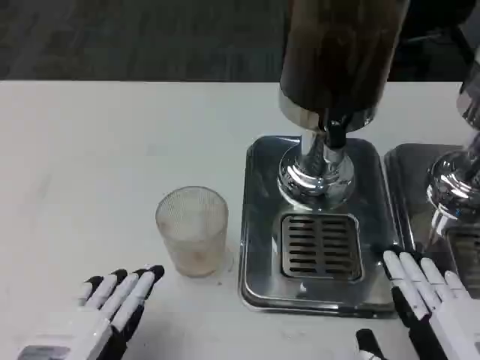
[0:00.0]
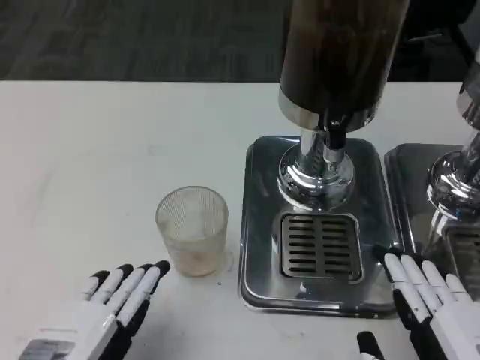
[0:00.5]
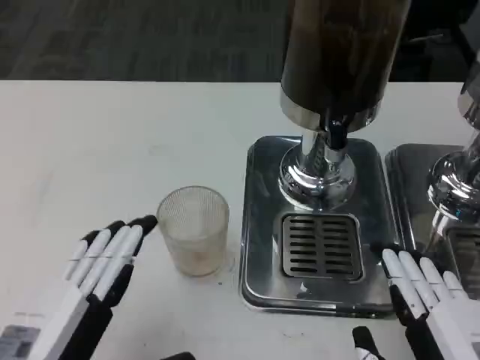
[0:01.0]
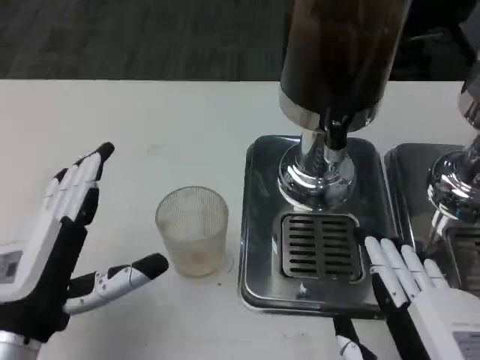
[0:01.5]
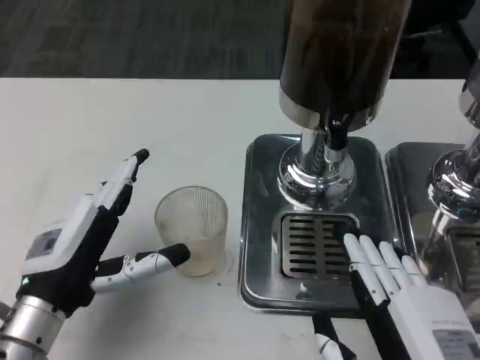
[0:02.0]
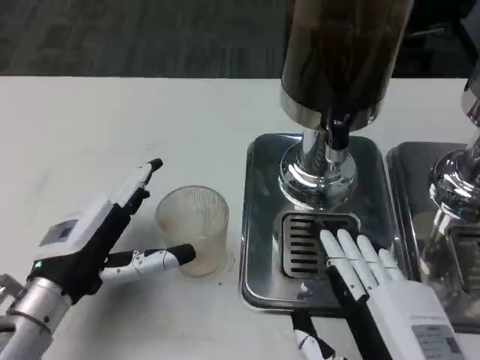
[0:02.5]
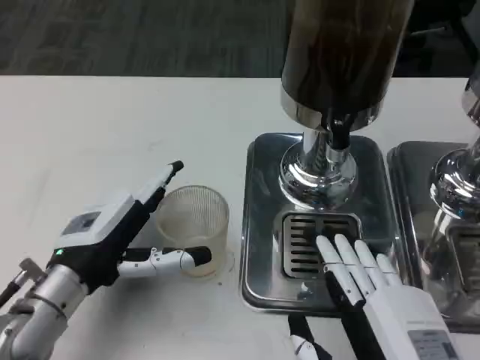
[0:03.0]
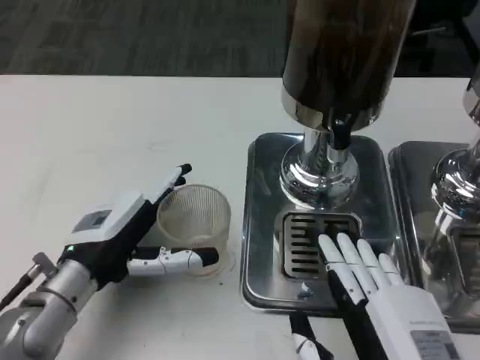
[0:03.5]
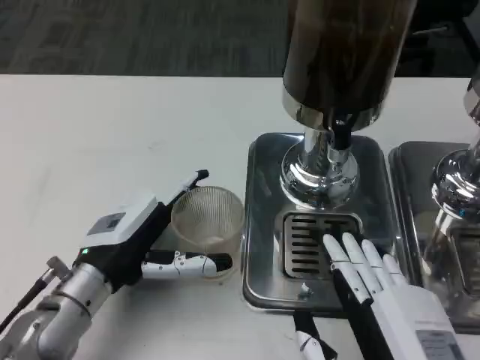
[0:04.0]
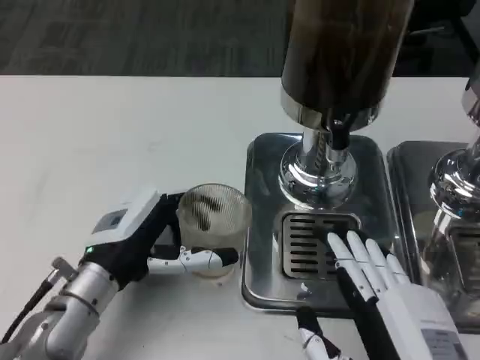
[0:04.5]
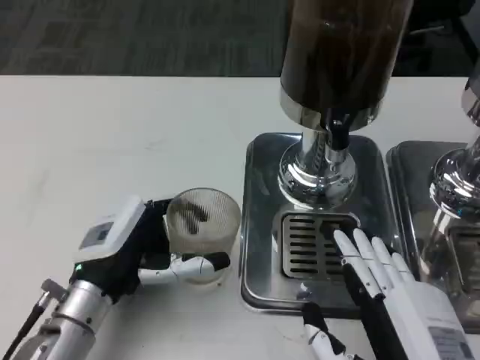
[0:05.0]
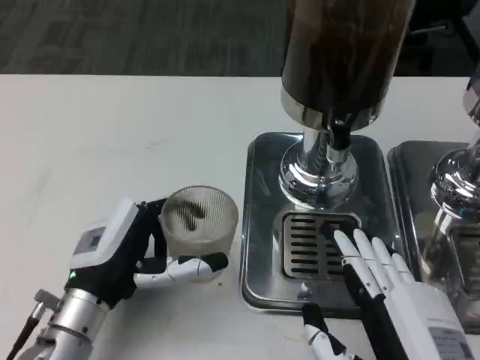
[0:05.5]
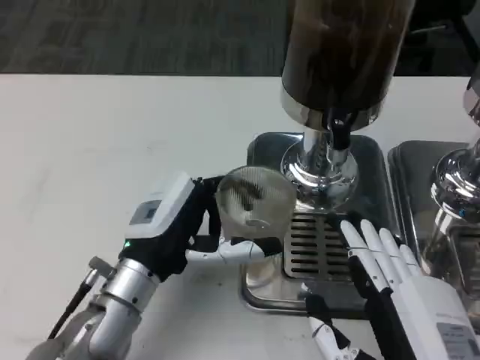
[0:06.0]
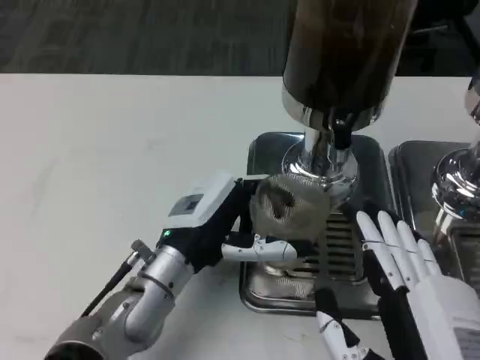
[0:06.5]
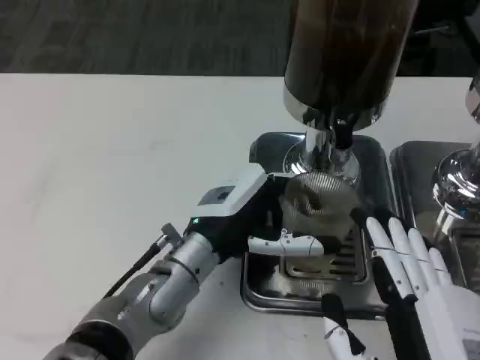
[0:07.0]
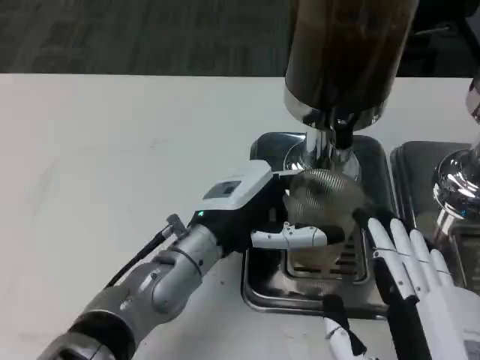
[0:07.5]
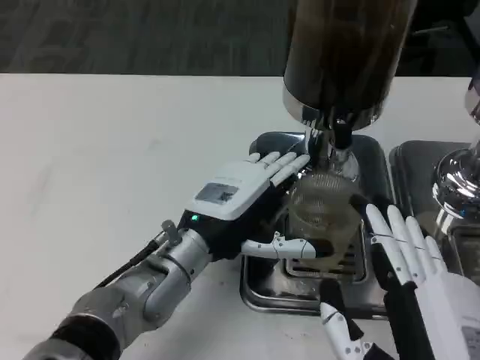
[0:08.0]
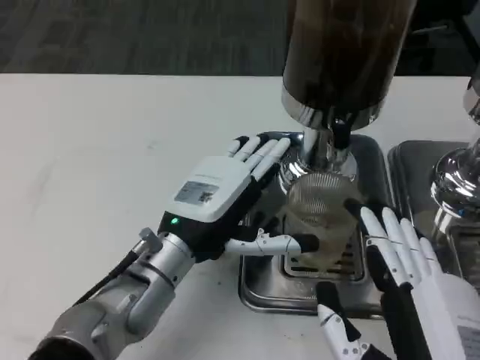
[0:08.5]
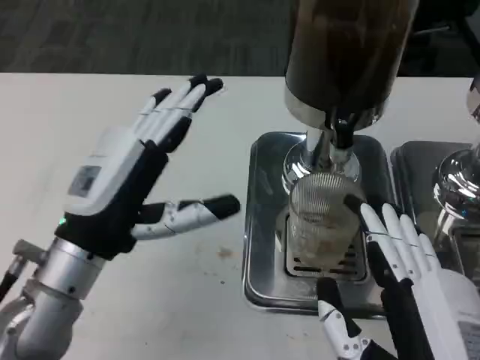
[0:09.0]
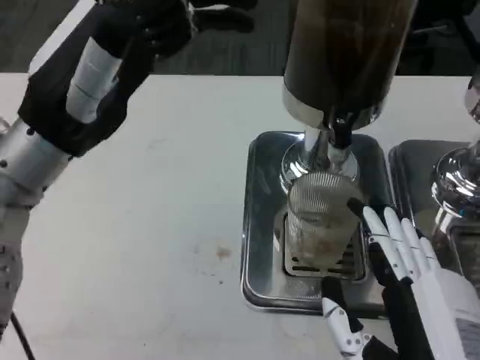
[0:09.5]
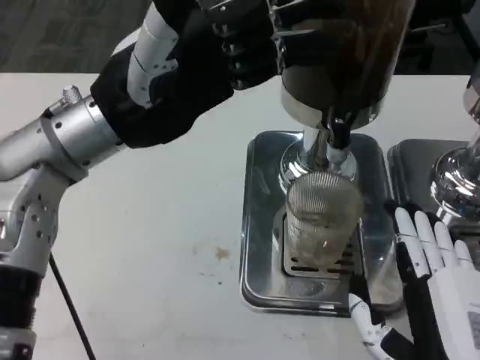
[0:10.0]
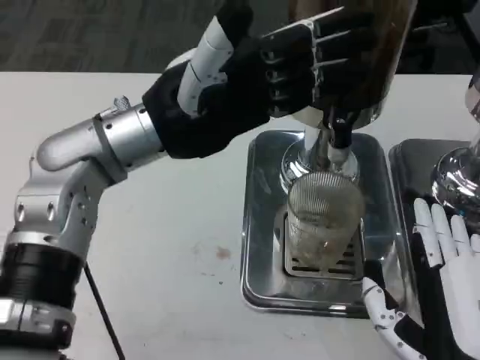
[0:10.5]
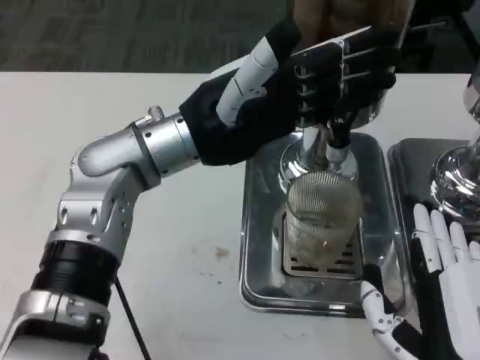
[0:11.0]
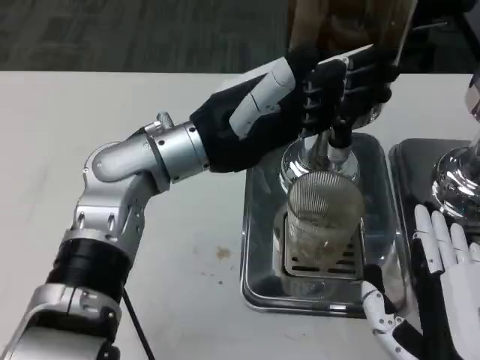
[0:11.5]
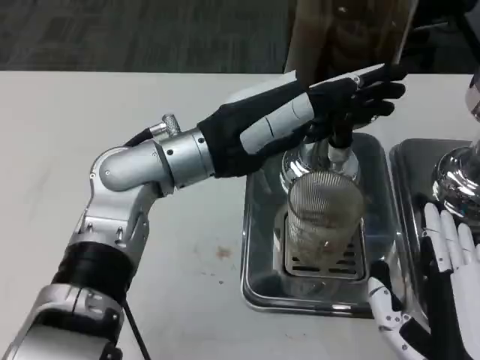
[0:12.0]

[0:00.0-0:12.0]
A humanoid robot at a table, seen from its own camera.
Task of the whole recording: Grasp the cup under the faucet to collect the drink, then remove the cup.
0:00.0 to 0:02.0: The left hand is displaced forward by approximately 10 cm.
0:02.0 to 0:04.0: The left hand shifts by some 5 cm.
0:04.0 to 0:06.0: The left hand heads to the right, covering some 5 cm.
0:06.0 to 0:08.0: The left hand ends up some 5 cm from where it was.
0:08.0 to 0:10.0: The left hand moves upward and to the left, approximately 15 cm.
0:10.0 to 0:12.0: The left hand travels to the right by about 5 cm.

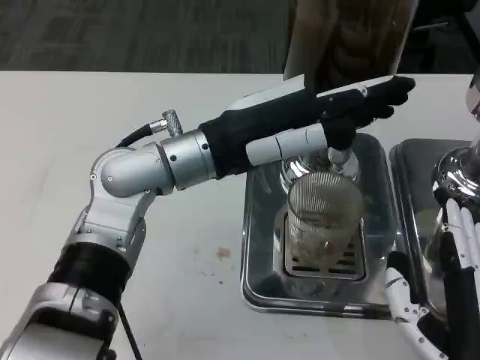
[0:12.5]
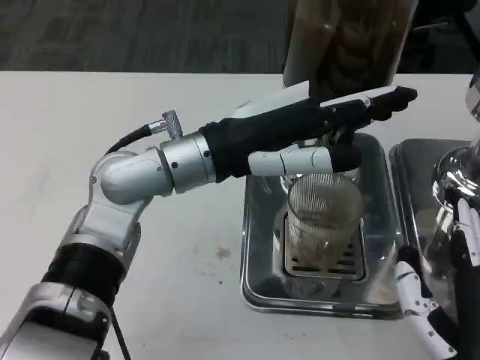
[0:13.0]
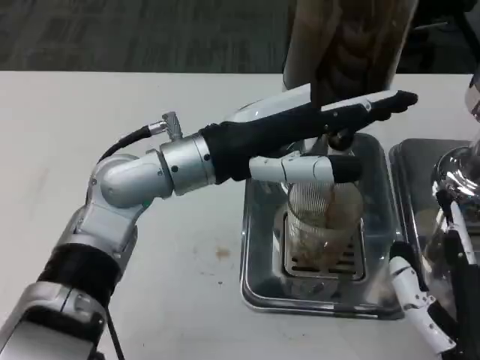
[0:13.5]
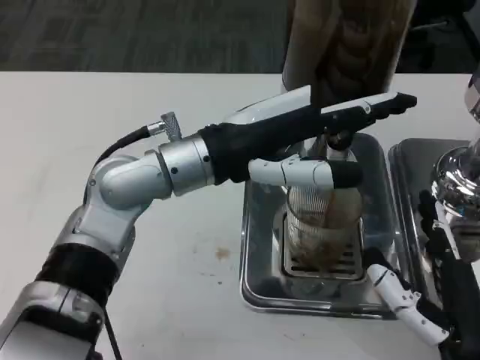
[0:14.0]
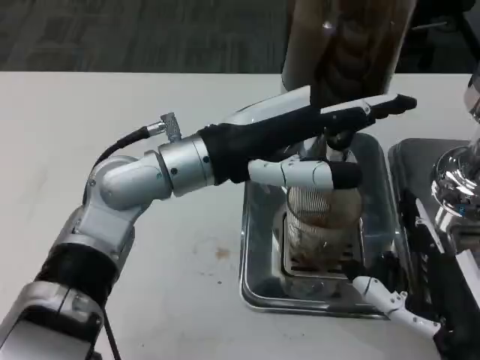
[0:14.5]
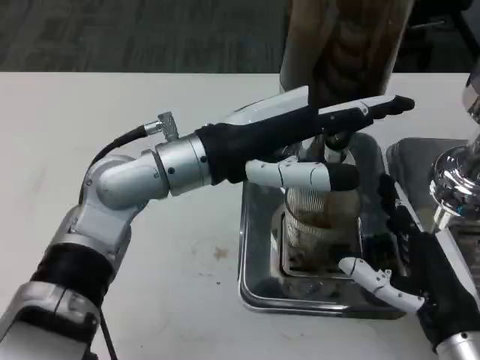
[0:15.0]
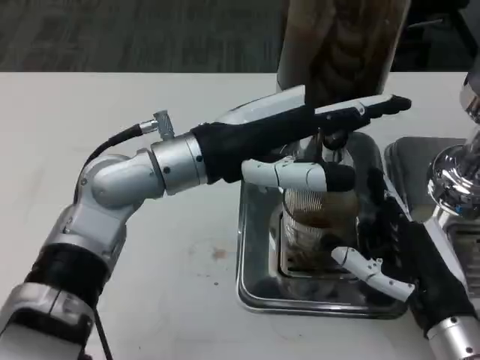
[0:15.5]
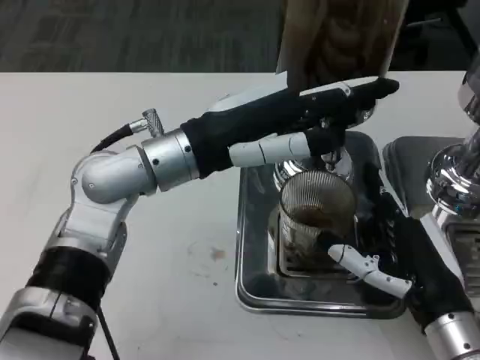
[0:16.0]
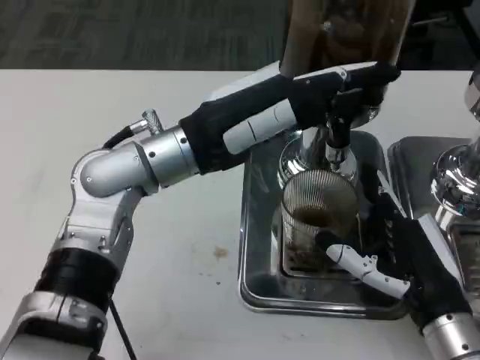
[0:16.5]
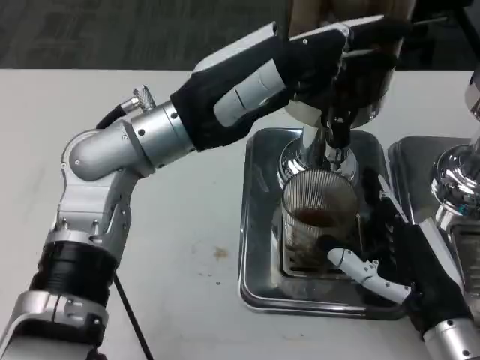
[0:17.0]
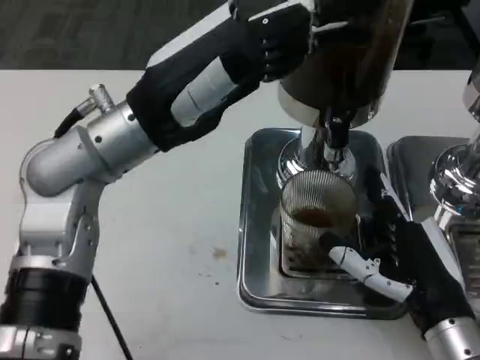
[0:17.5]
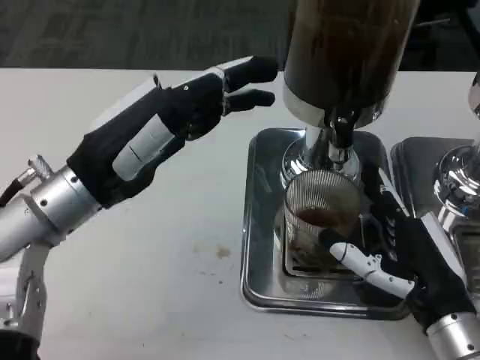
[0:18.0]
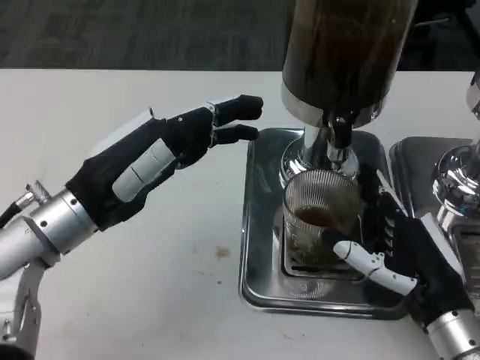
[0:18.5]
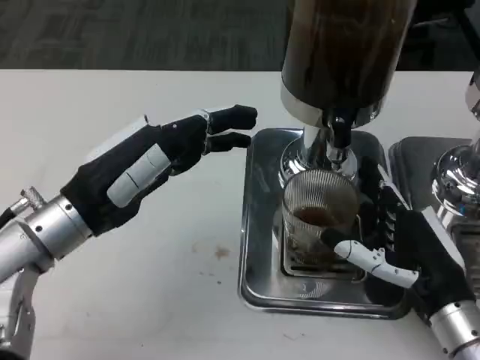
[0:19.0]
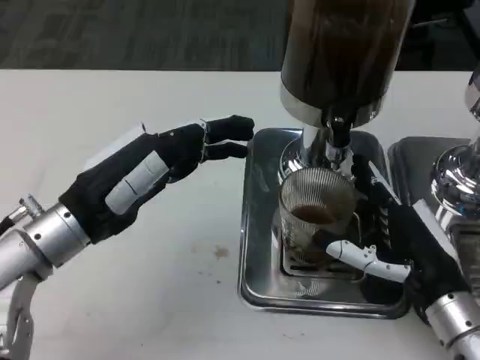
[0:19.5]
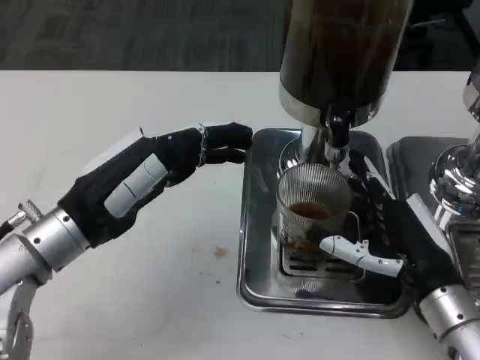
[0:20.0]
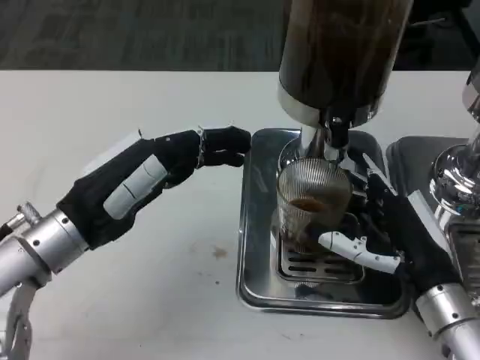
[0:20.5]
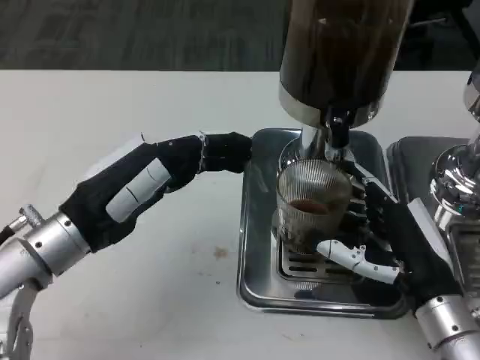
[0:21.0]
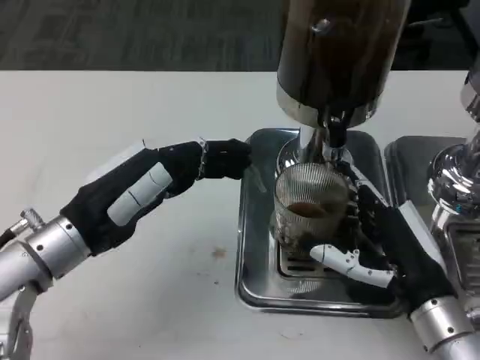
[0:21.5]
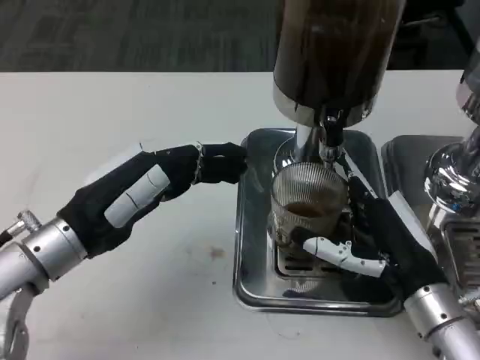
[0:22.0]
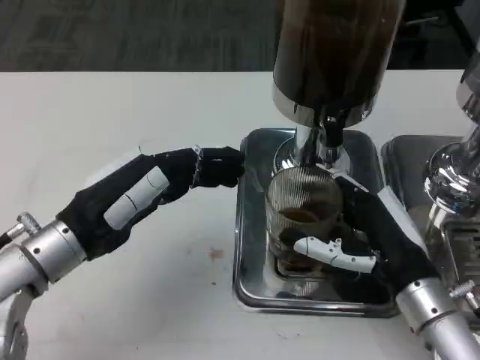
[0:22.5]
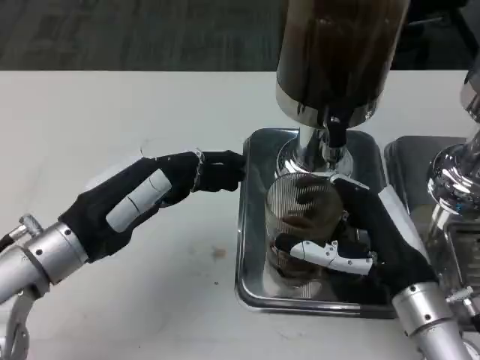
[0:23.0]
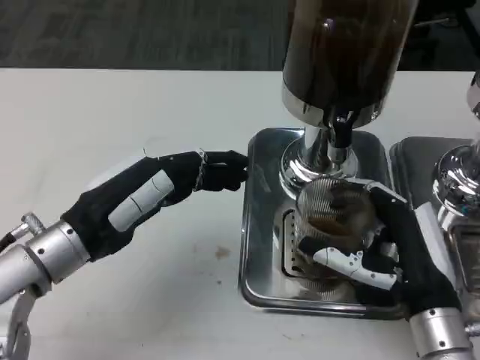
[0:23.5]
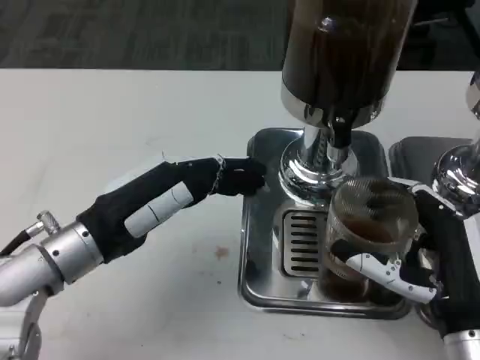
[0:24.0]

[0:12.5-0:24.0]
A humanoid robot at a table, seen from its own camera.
Task of the whole recording: Grasp the cup under the faucet to collect the drink, then remove the cup.
0:12.5 to 0:14.5: The right hand is displaced forward by about 5 cm.
0:14.5 to 0:16.5: The right hand changes place by about 5 cm.
0:16.5 to 0:18.5: The left hand is displaced to the left and backward by about 10 cm.
0:22.0 to 0:24.0: The right hand moves backward, some 5 cm.

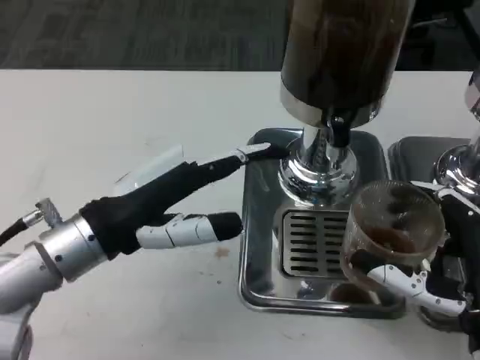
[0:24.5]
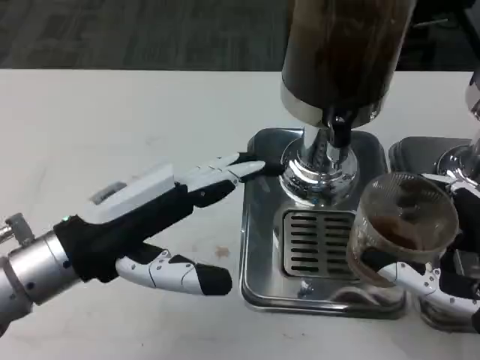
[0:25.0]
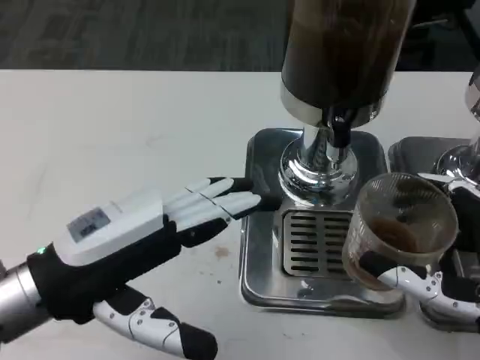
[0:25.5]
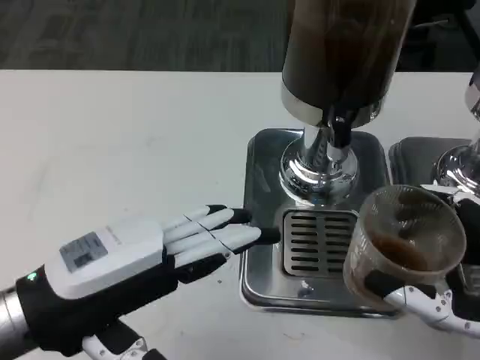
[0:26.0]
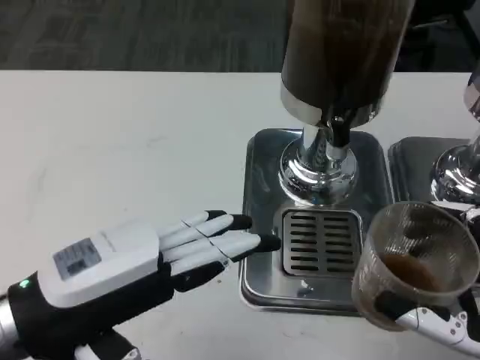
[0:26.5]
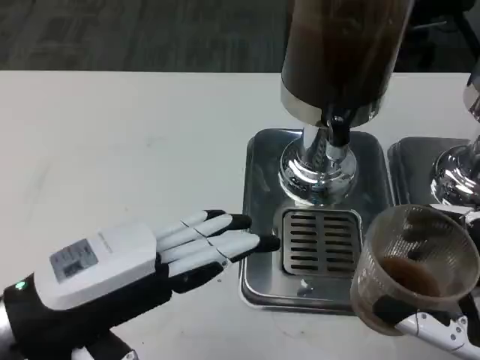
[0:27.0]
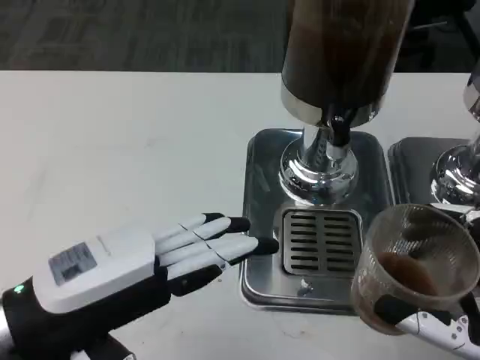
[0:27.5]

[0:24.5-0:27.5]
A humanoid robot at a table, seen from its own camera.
Task of the whole recording: Grasp the cup under the faucet to collect the drink, then remove the cup.
0:24.5 to 0:26.0: The left hand travels backward by approximately 10 cm.
0:26.0 to 0:27.5: The hands move only a little.
